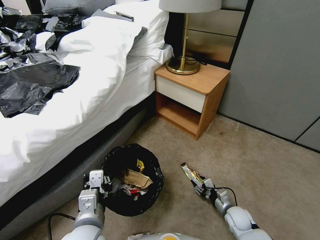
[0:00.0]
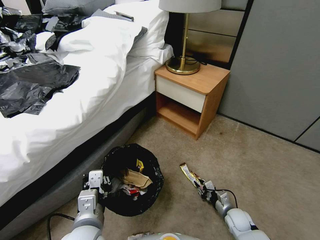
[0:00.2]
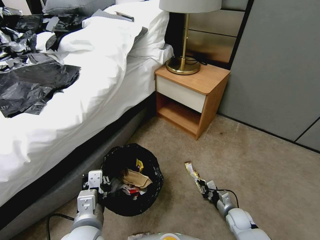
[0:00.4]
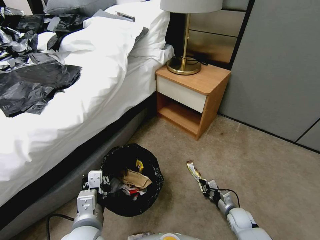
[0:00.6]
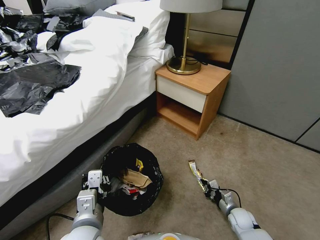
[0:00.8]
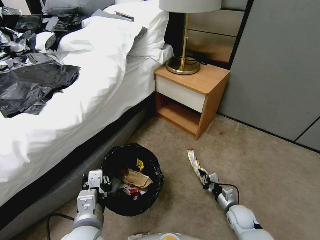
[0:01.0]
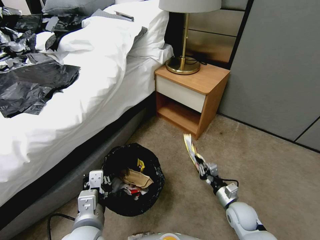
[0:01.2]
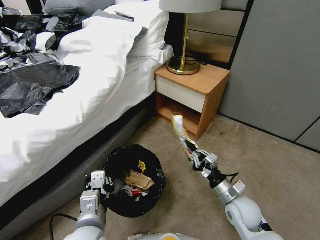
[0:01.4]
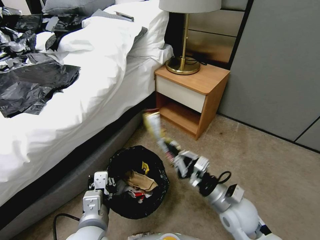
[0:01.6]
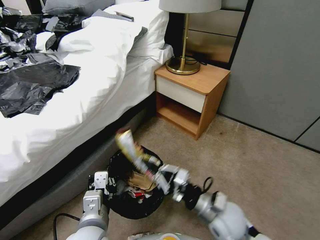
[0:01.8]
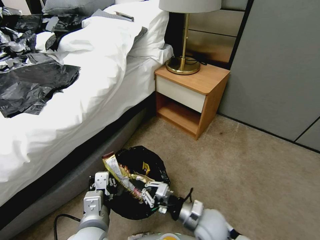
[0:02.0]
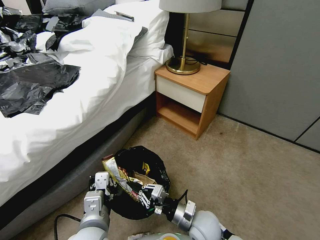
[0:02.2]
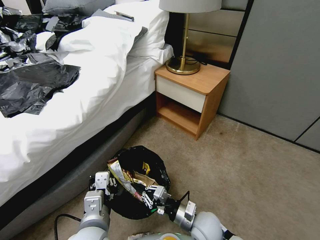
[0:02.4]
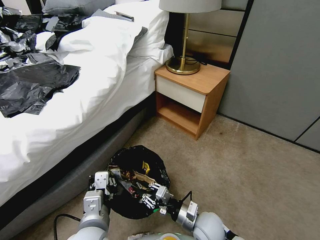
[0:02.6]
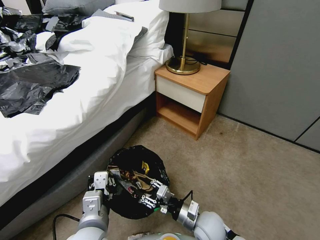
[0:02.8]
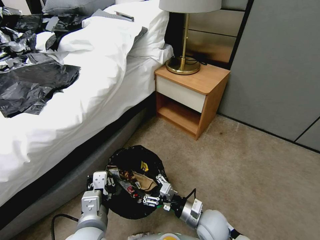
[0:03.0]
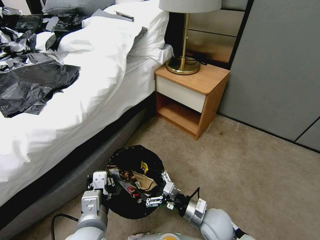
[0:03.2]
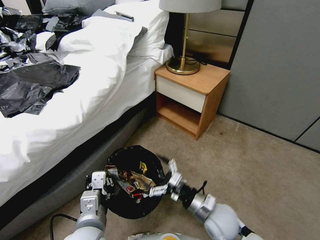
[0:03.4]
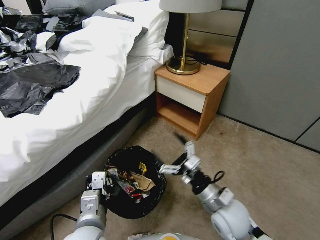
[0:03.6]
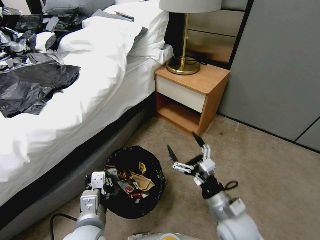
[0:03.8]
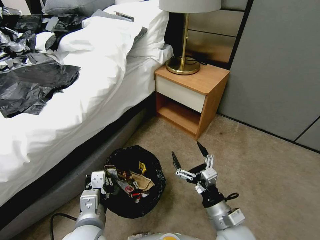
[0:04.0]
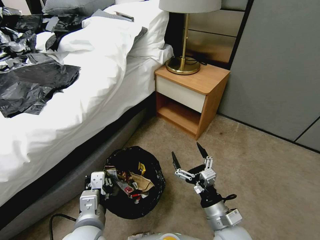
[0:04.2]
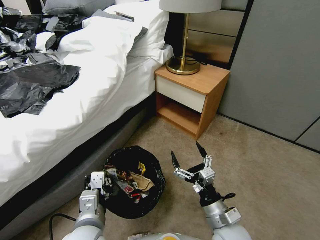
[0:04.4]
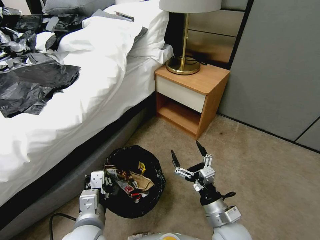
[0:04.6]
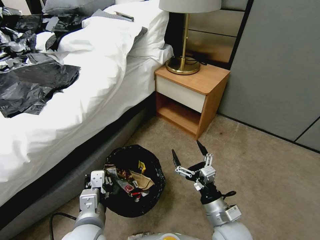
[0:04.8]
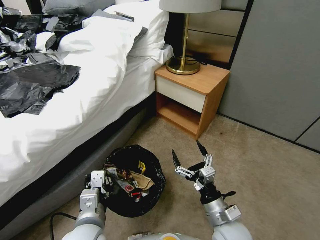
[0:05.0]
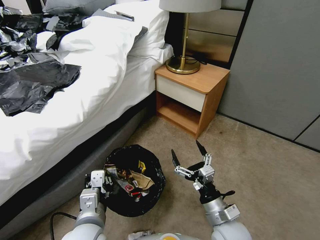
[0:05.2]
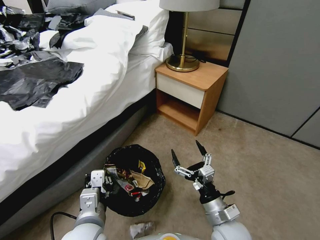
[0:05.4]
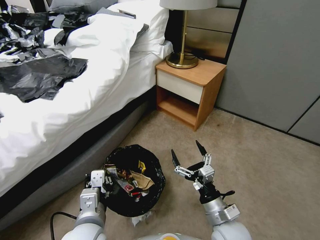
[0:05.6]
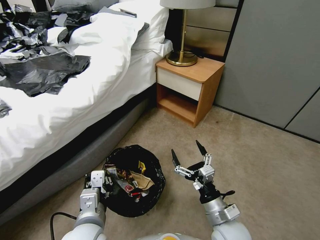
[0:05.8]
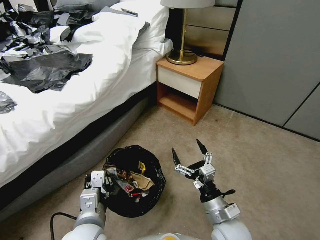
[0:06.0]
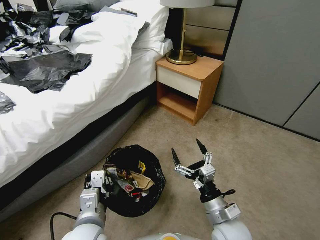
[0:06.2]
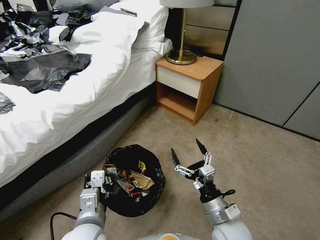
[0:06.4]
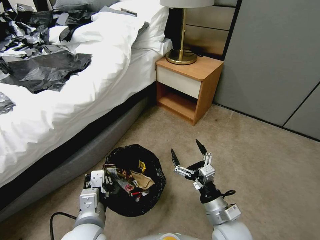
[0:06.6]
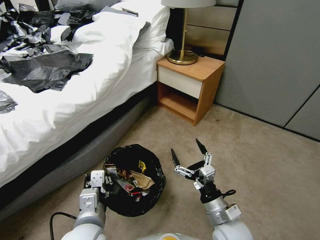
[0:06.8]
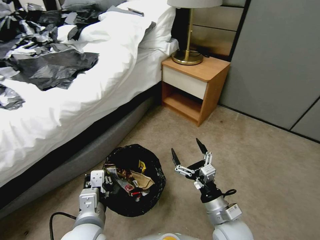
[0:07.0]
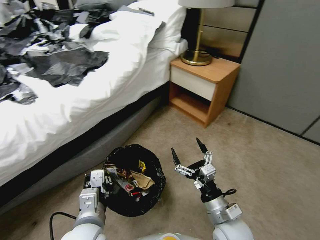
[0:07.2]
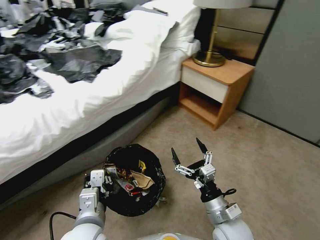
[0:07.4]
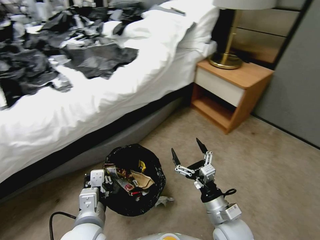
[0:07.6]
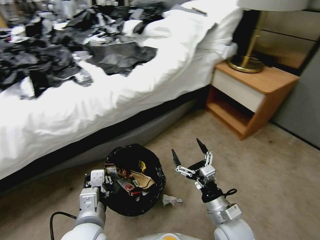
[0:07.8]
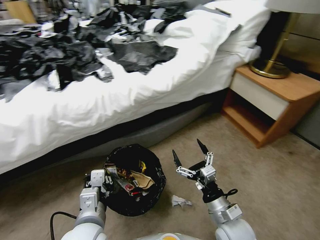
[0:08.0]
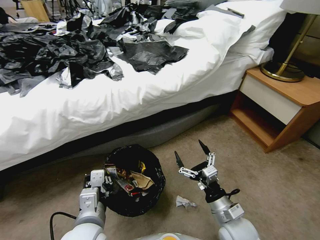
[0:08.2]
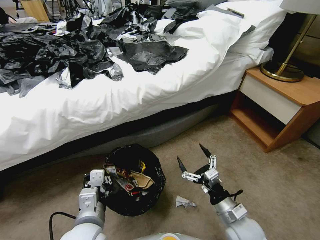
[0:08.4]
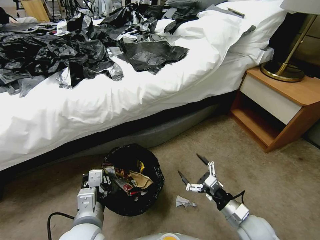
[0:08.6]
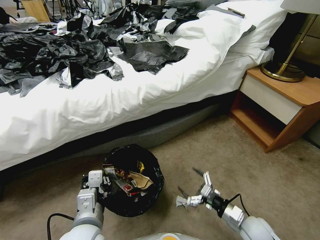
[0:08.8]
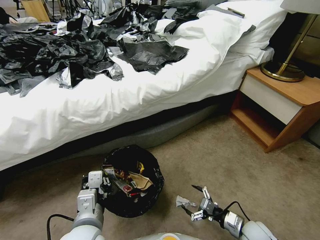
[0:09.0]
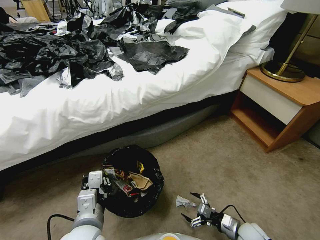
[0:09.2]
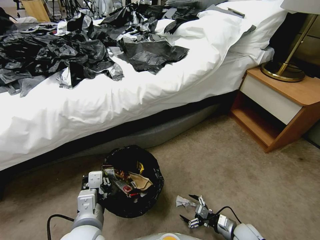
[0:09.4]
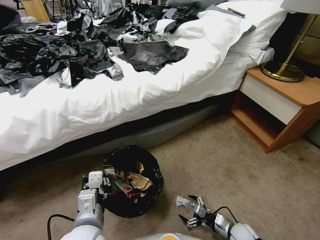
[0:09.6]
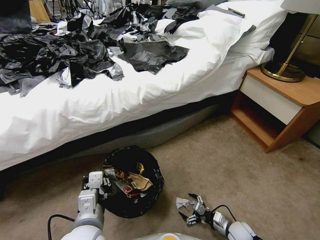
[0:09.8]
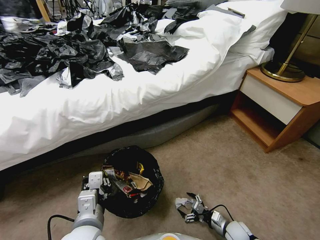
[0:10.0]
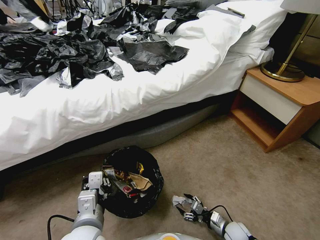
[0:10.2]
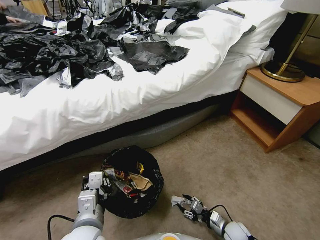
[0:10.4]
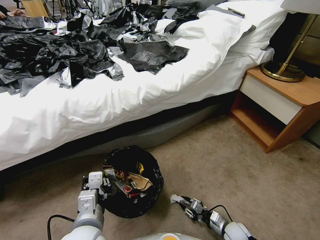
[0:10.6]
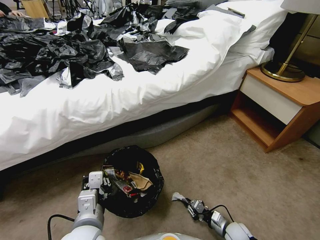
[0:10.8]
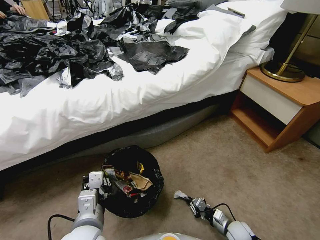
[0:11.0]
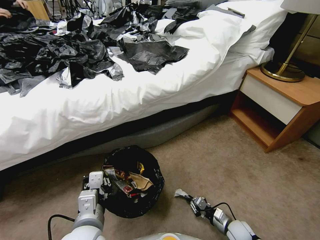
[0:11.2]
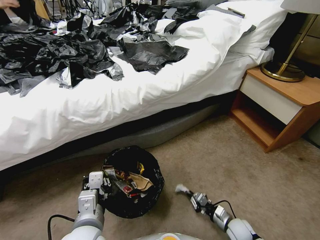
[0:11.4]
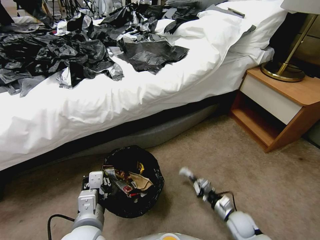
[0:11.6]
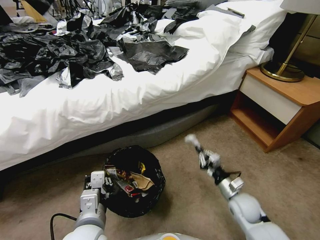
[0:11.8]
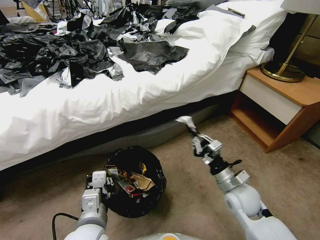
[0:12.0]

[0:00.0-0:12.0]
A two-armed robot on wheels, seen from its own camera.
Task of the whole recording: Pick up the trash bin, then pick up the garbage from the floor and place it into the trash bin.
0:00.0 to 0:01.6: The right gripper shifts approximately 25 cm upward and to the left, and closes.
0:01.6 to 0:03.0: The right gripper moves downward and to the left, some 10 cm, and opens.
0:03.0 to 0:04.4: The right gripper travels upward by some 5 cm.
0:07.6 to 0:09.0: The right gripper heads to the right and downward, covering approximately 20 cm.
0:09.0 to 0:10.4: The right gripper moves downward, some 10 cm, and closes.
0:10.4 to 0:12.0: The right gripper goes some 25 cm upward, and closes.

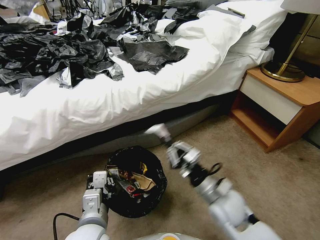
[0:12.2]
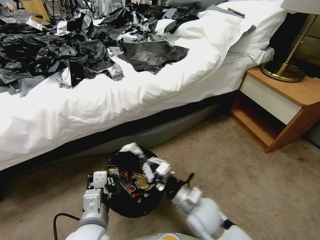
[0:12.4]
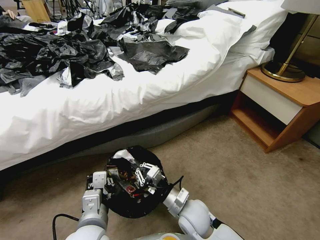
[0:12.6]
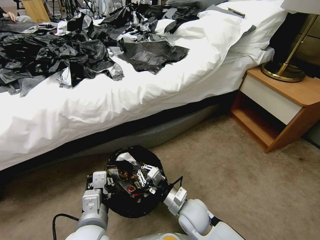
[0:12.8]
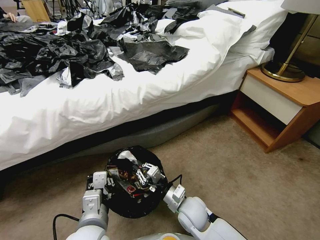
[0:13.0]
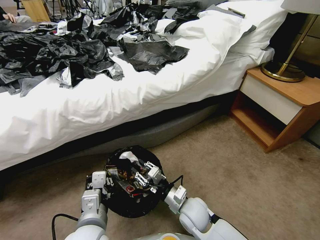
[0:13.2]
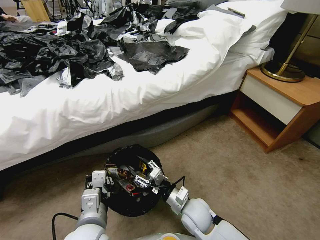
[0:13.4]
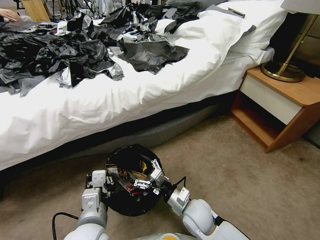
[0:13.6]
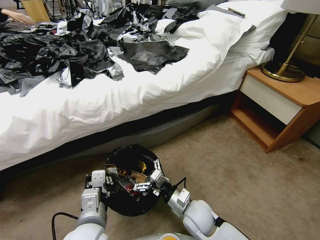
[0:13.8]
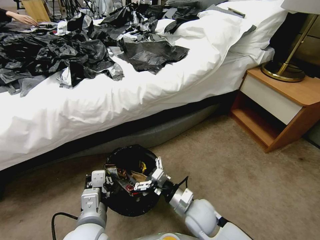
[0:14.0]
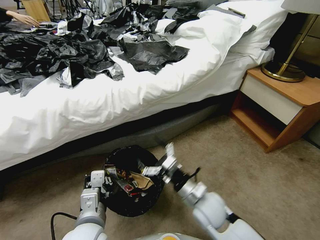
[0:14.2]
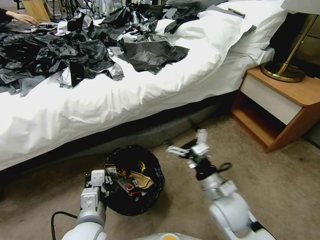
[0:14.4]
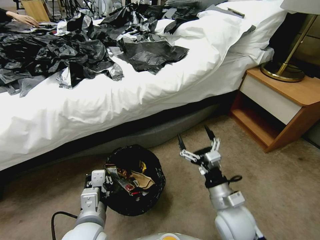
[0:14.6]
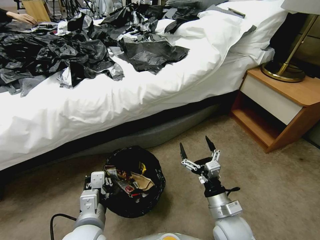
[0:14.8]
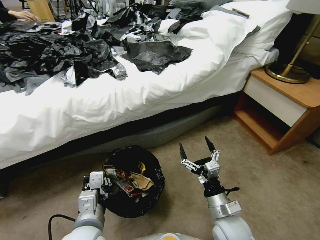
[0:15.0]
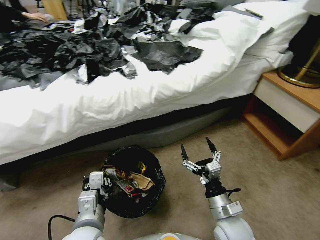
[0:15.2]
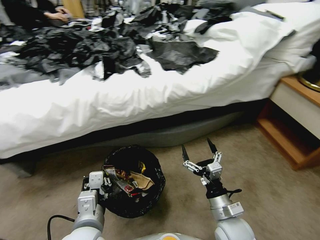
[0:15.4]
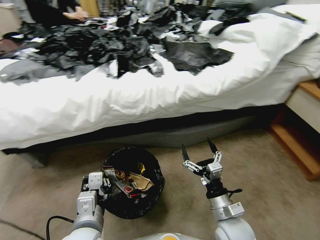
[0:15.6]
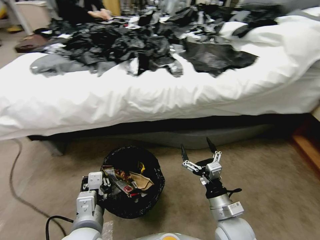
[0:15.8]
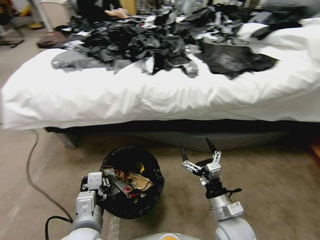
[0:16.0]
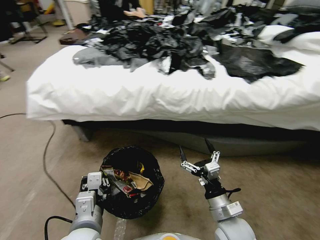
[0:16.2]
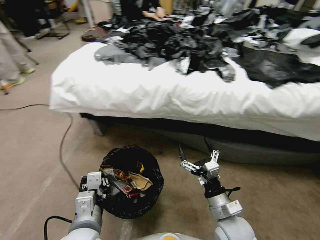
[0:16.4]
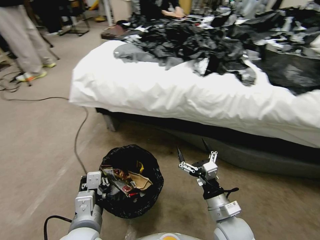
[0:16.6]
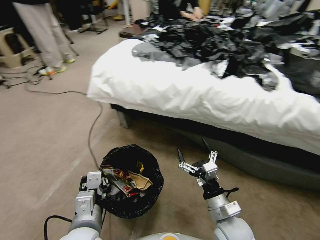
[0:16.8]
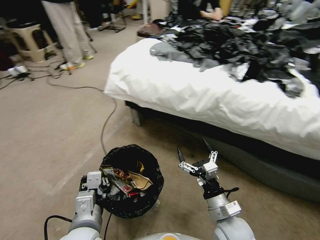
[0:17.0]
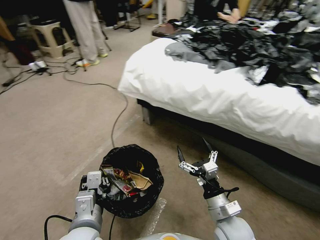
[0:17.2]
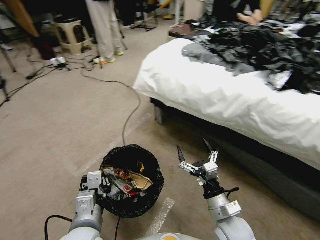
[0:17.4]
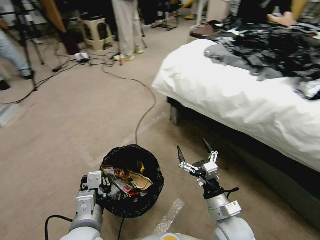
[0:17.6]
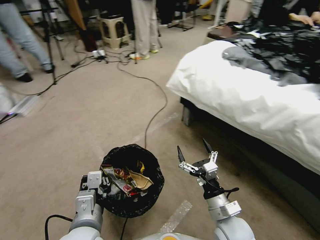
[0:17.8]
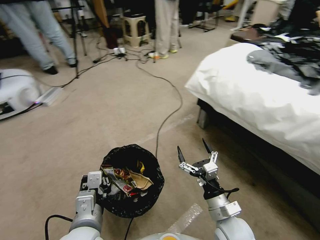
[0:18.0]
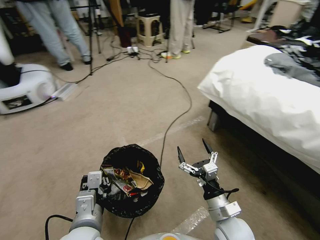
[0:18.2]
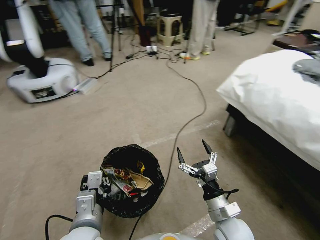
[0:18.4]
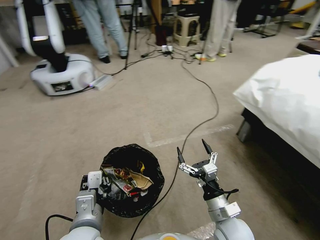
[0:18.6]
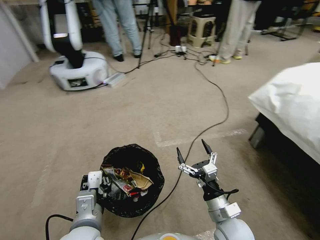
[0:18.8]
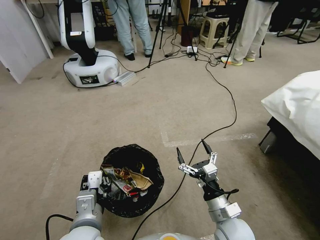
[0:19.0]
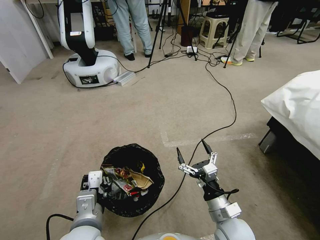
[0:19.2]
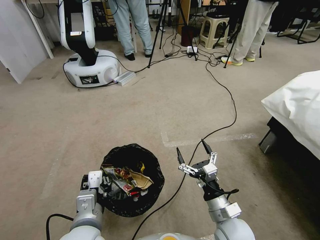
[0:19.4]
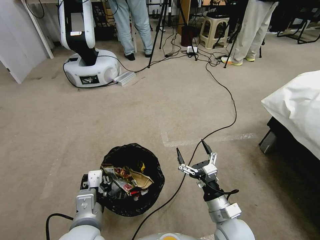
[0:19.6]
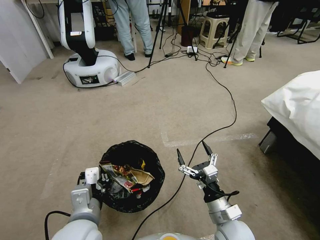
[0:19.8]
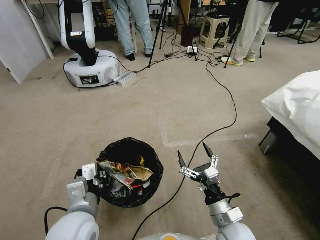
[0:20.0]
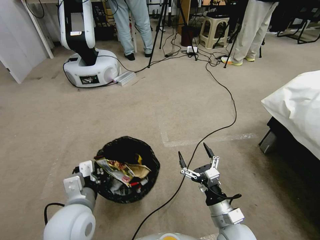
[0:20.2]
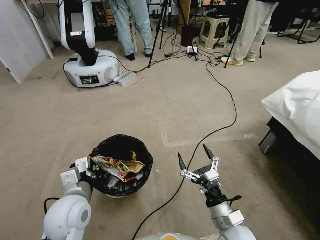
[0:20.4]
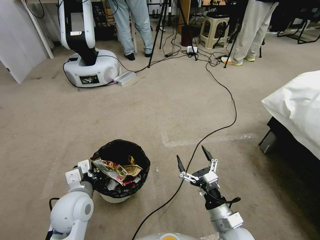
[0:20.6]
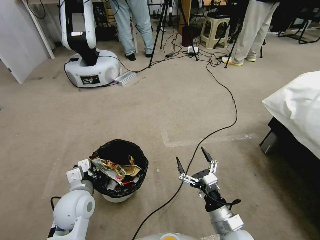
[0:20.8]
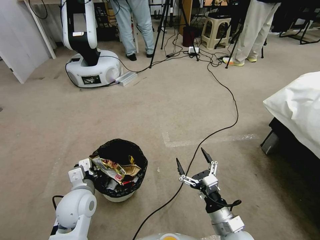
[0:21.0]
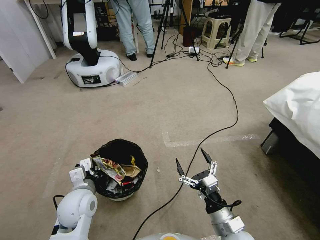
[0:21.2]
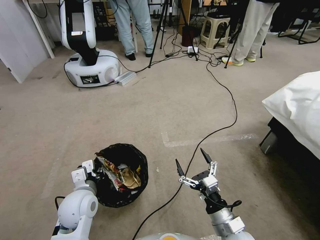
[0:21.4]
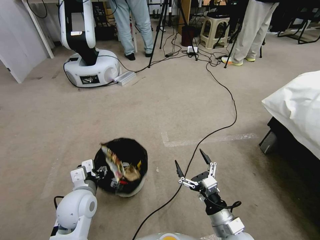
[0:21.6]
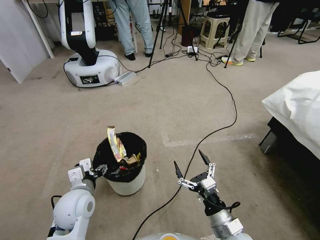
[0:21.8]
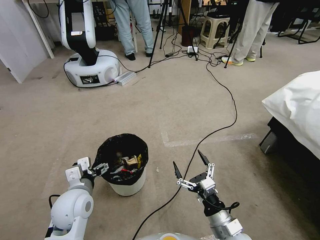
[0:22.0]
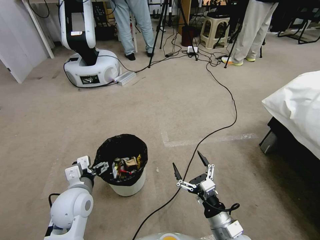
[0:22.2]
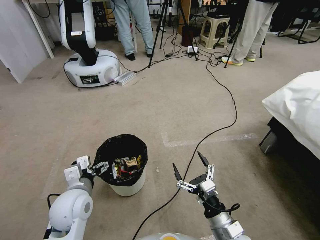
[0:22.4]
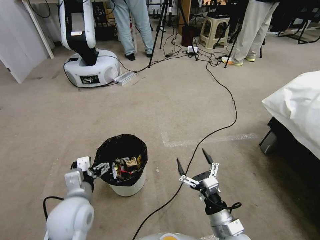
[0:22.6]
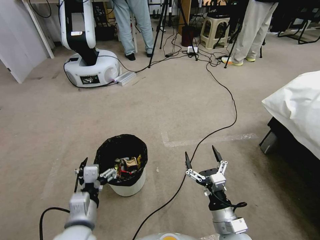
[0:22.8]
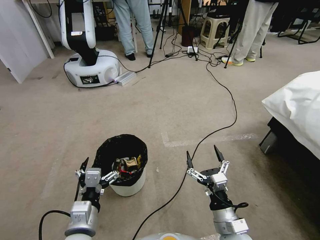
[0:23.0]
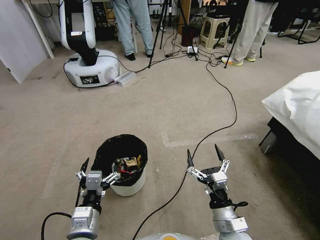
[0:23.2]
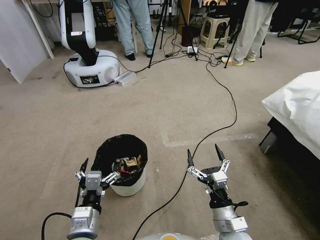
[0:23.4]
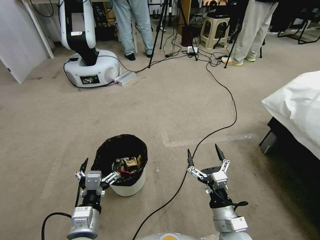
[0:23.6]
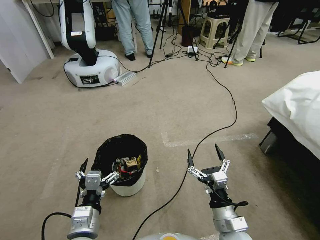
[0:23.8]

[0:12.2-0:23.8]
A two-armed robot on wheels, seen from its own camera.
Task of the whole recording: Pick up the trash bin, then pick up the garbage from the floor and place it into the trash bin.
0:12.2 to 0:13.6: The right gripper goes approximately 10 cm downward and to the left, and opens its fingers.
0:13.6 to 0:15.0: The right gripper travels to the right and backward by some 10 cm.
0:19.4 to 0:21.0: The left gripper shifts about 15 cm forward, to the left and downward.
0:21.0 to 0:22.4: The left gripper opens.
0:22.4 to 0:23.8: The left gripper goes roughly 10 cm backward.
